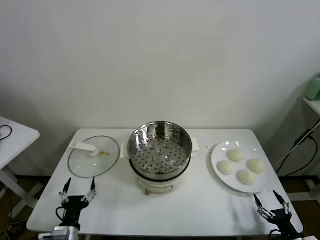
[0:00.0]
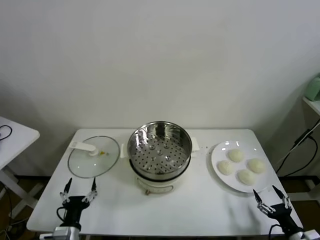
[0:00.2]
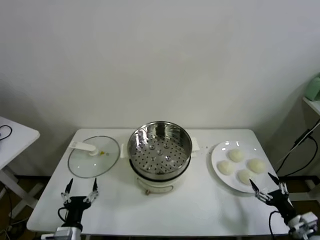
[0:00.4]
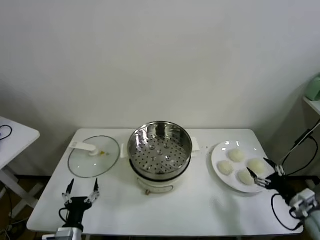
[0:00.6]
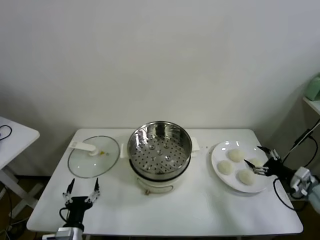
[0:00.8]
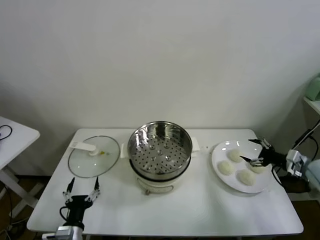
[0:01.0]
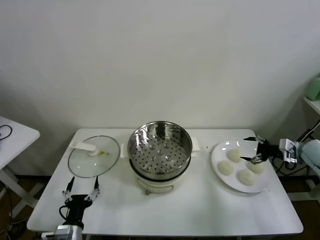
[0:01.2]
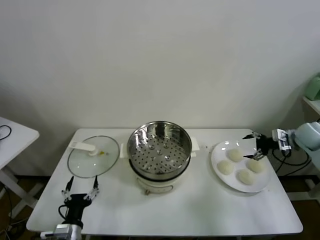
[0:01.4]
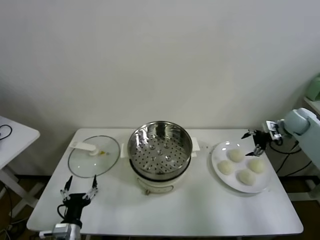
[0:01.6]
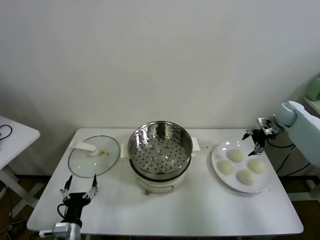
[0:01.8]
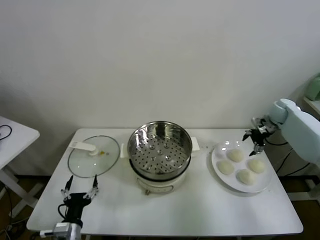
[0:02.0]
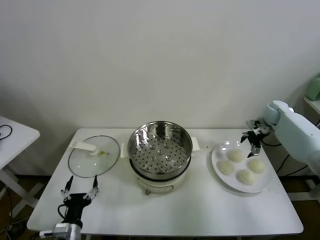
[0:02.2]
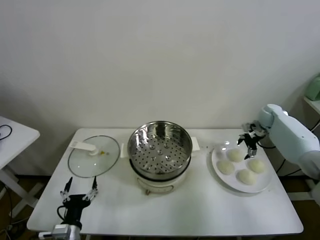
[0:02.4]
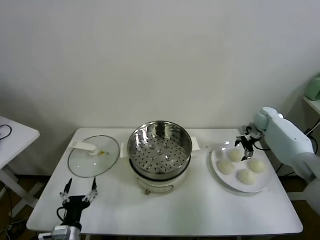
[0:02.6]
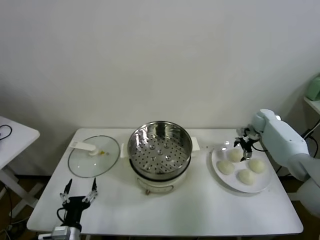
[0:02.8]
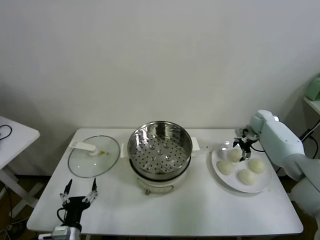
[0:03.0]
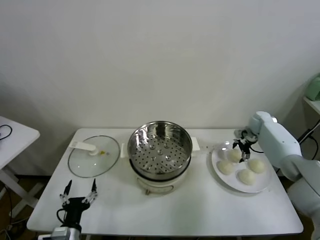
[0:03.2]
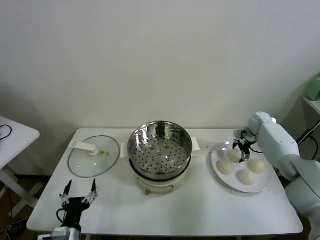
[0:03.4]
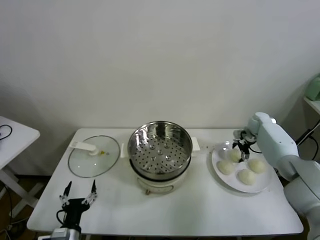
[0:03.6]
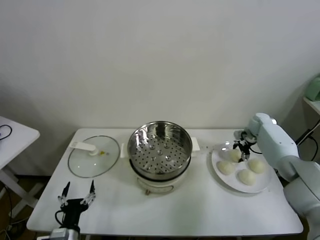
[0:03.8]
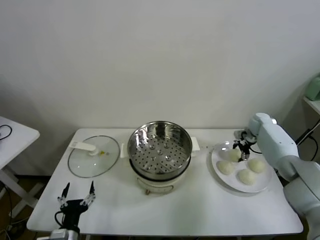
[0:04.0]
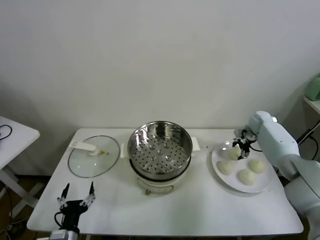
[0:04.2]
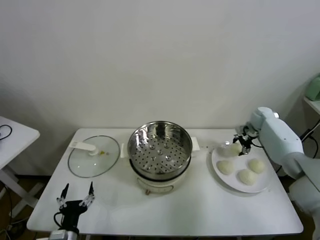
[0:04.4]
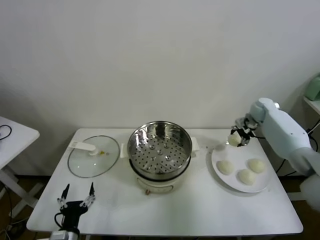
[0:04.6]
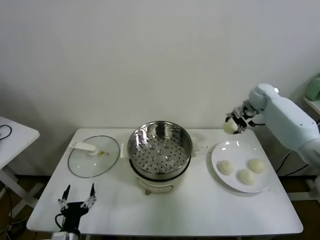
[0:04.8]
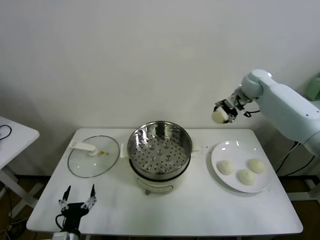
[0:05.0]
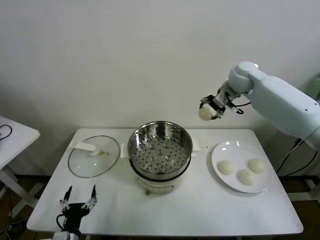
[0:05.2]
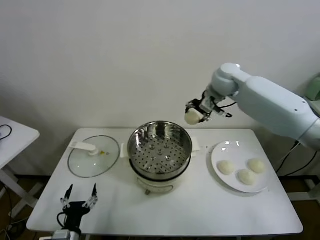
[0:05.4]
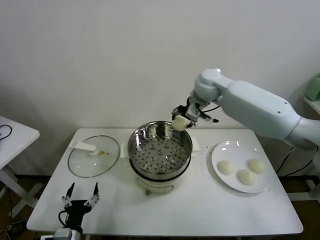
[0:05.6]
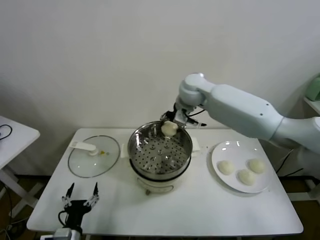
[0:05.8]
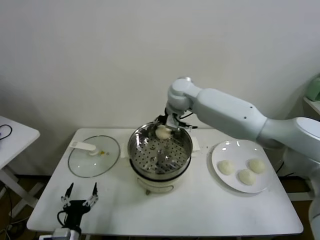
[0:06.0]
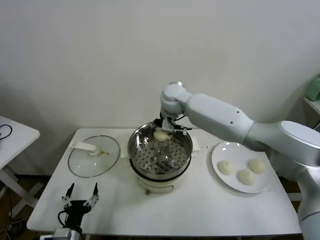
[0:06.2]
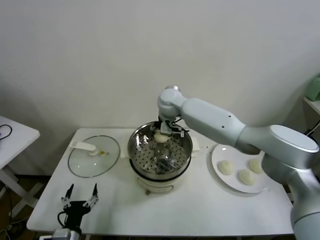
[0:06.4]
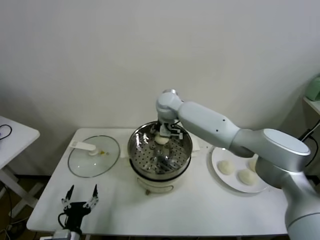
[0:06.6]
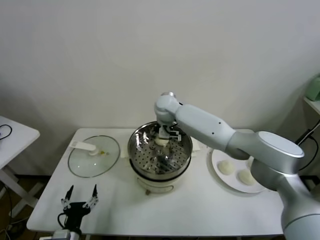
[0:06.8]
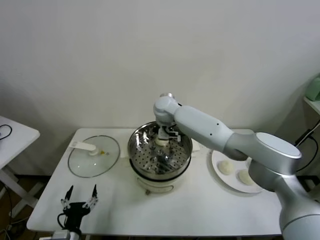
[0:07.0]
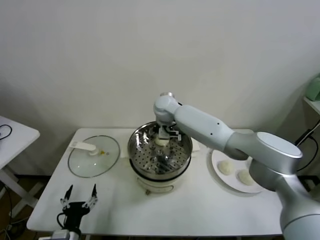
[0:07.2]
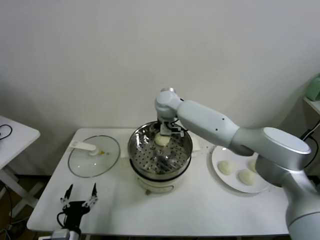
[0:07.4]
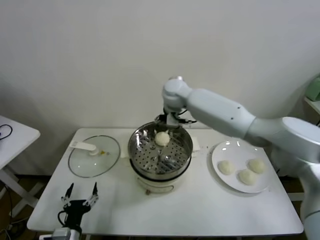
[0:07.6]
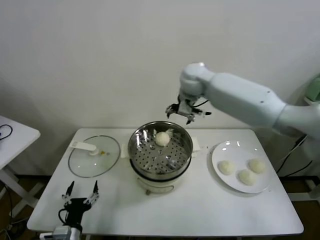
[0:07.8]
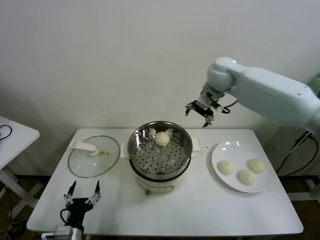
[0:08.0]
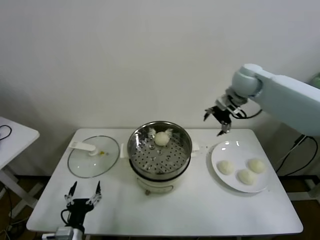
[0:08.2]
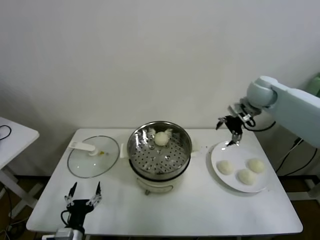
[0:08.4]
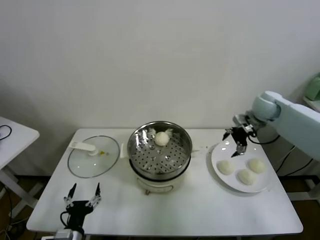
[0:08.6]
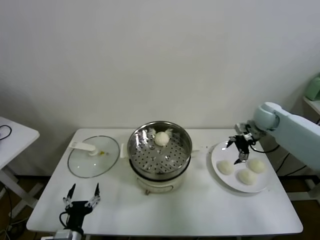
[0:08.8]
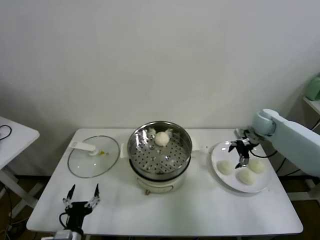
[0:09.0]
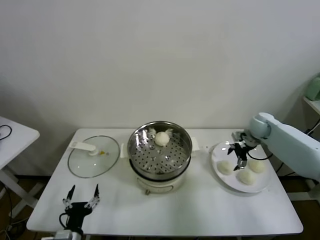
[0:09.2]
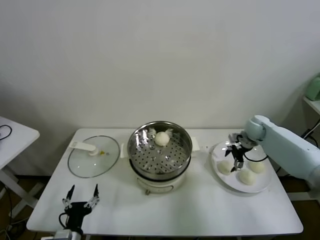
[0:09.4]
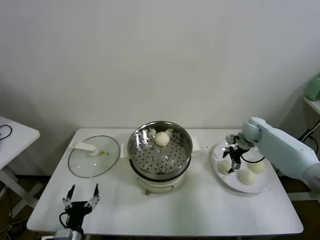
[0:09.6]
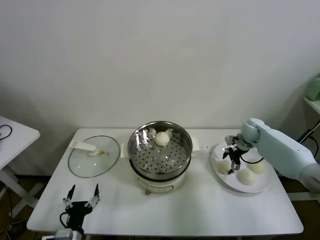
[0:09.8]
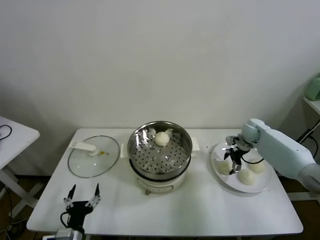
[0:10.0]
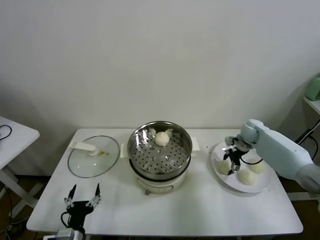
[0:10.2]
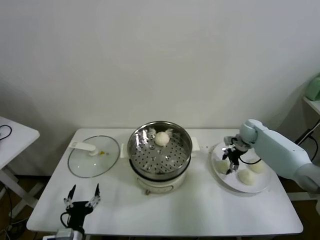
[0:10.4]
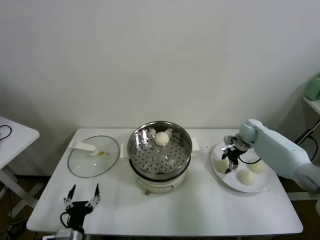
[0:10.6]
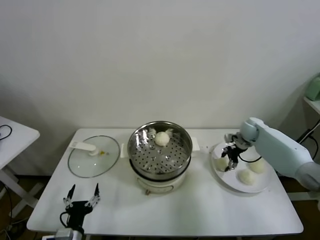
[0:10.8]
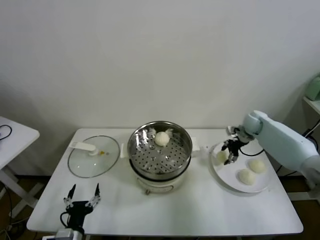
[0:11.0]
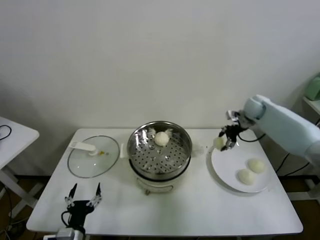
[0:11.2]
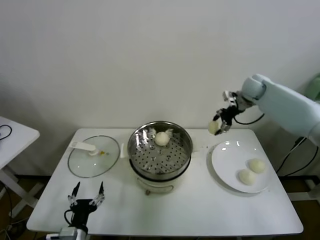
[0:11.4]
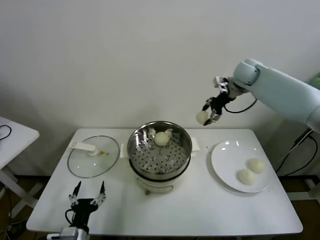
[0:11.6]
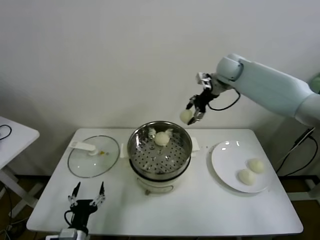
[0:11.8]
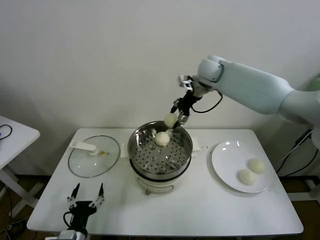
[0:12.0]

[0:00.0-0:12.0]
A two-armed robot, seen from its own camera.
Task of the whole recording: take steamed baozi put them in steamer.
Step, 0.0 to 3.8 s: Grasp the baozi in the plate with right gripper.
Step, 4.2 to 7.0 s: Place the baozi on the steamer with right gripper.
Step, 7.4 to 10.4 s: Grasp the baozi in the plate with right gripper.
1.6 to 3.0 s: The right gripper shifts some 10 cm downward, to the left and forward.
3.0 to 4.4 s: The right gripper closes its fingers.
4.4 to 6.0 s: The right gripper moves to the left and upward, about 40 cm.
6.0 to 7.6 s: The right gripper goes downward and returns, about 5 cm each way, and opens its fingers.
7.6 to 9.0 s: The right gripper heads to the right and downward, covering some 35 cm.
9.0 to 10.4 s: The right gripper travels downward by some 5 cm, and closes up.
10.4 to 12.0 s: The right gripper goes approximately 35 cm upward and to the left.

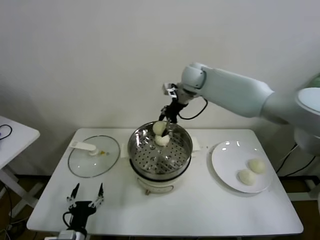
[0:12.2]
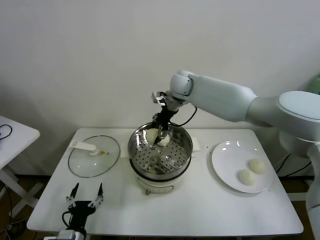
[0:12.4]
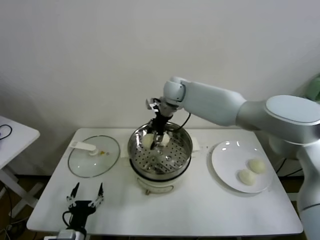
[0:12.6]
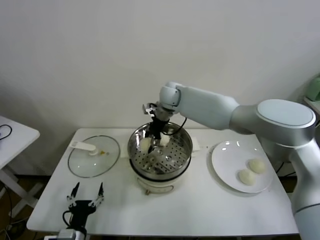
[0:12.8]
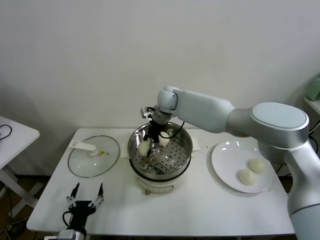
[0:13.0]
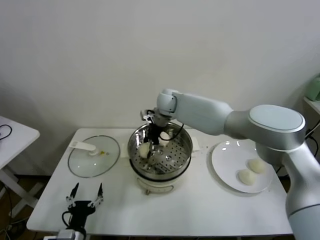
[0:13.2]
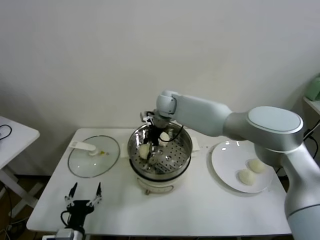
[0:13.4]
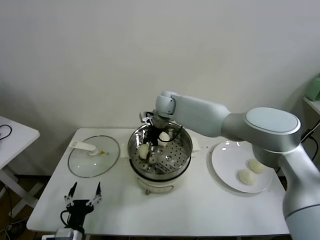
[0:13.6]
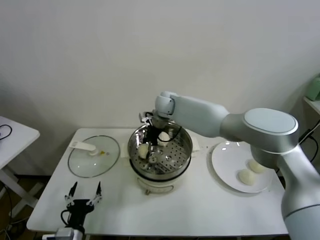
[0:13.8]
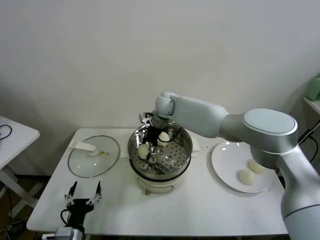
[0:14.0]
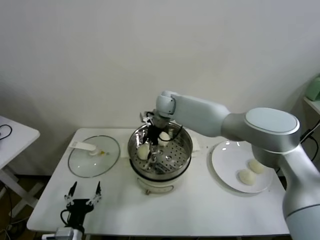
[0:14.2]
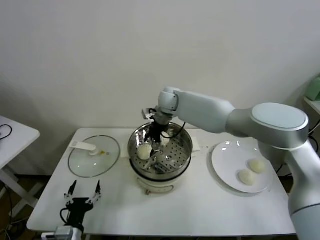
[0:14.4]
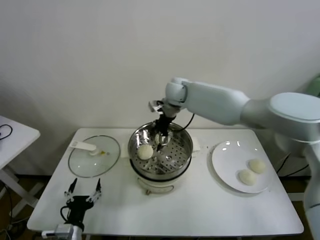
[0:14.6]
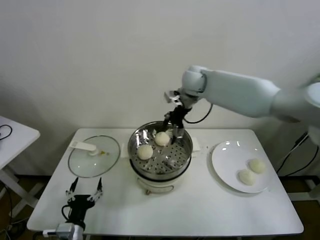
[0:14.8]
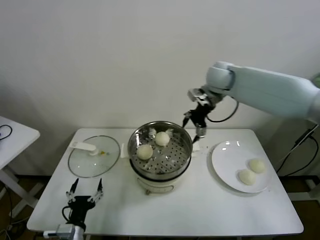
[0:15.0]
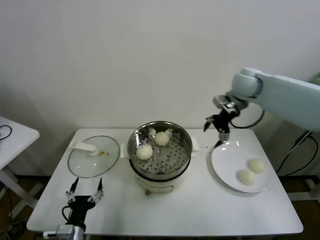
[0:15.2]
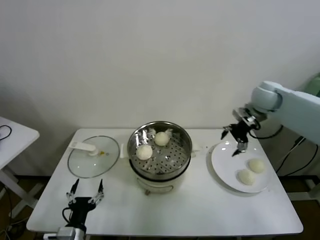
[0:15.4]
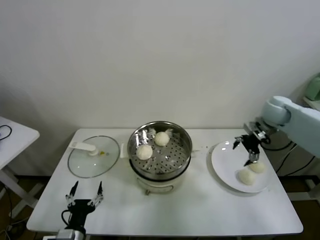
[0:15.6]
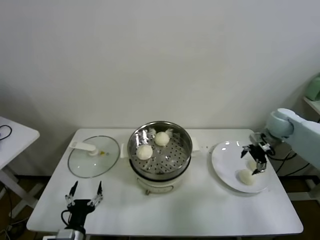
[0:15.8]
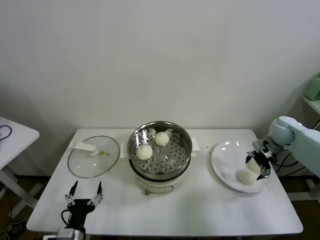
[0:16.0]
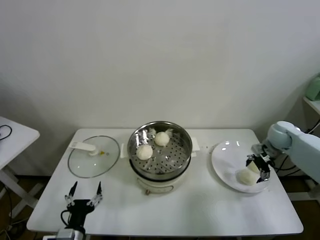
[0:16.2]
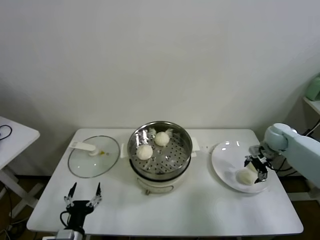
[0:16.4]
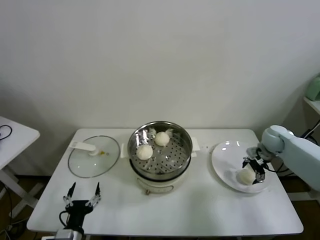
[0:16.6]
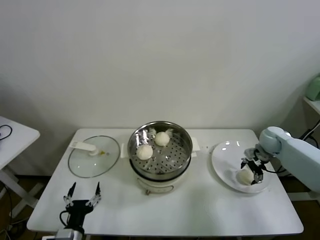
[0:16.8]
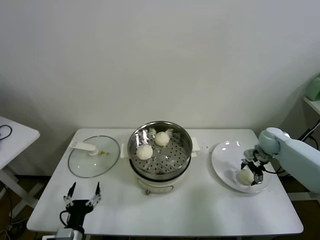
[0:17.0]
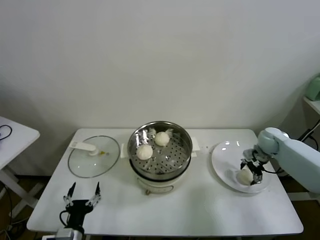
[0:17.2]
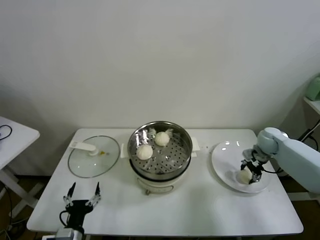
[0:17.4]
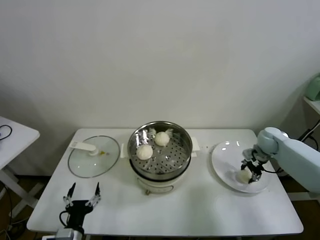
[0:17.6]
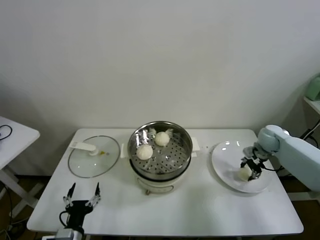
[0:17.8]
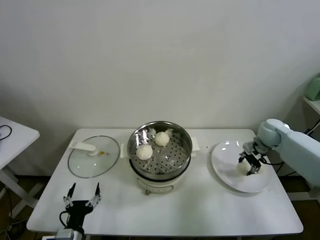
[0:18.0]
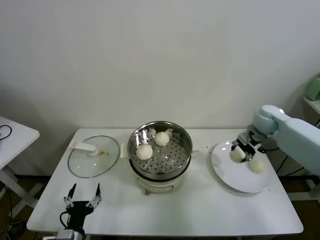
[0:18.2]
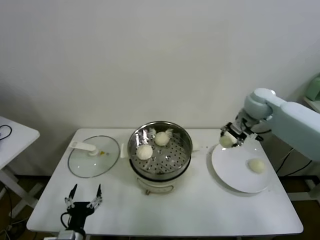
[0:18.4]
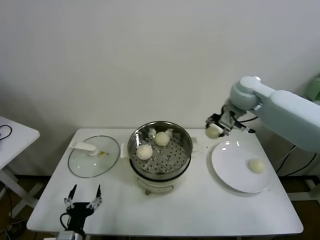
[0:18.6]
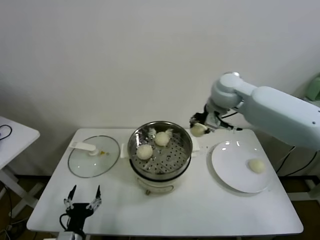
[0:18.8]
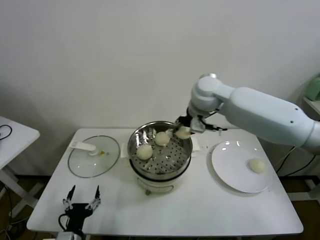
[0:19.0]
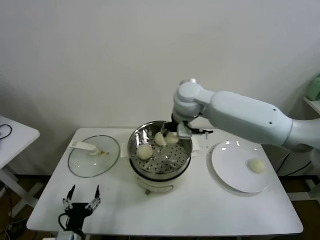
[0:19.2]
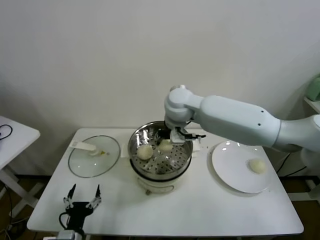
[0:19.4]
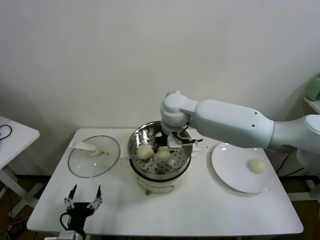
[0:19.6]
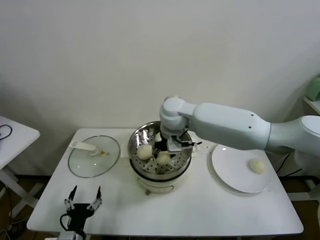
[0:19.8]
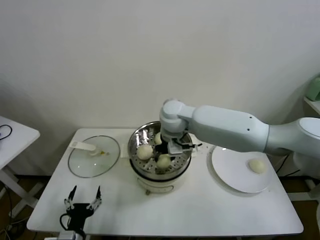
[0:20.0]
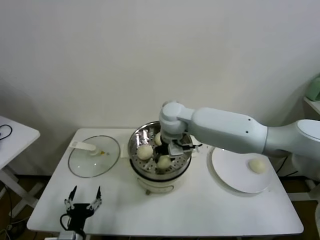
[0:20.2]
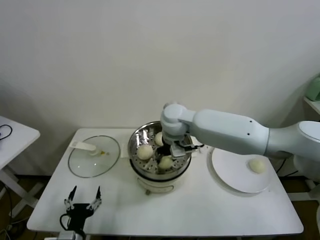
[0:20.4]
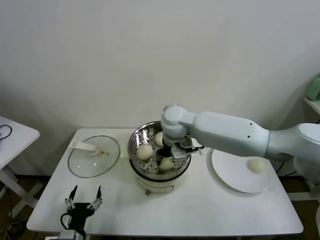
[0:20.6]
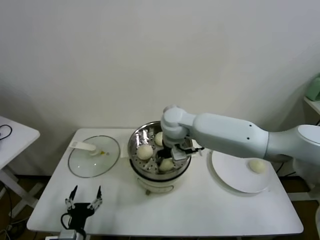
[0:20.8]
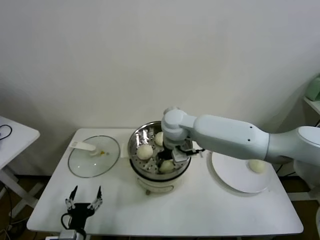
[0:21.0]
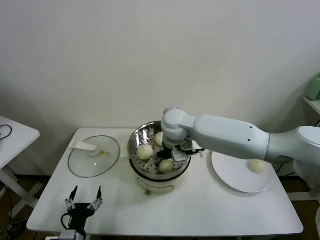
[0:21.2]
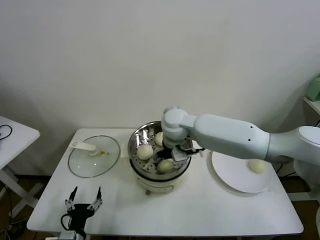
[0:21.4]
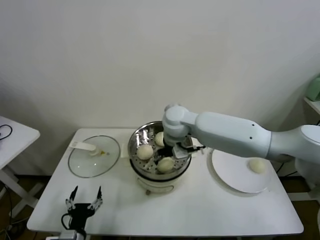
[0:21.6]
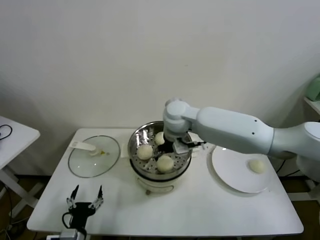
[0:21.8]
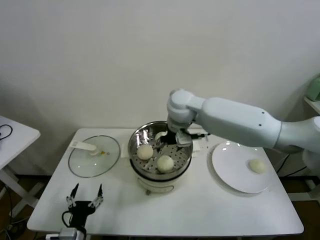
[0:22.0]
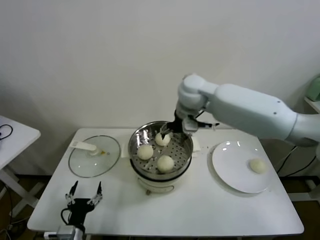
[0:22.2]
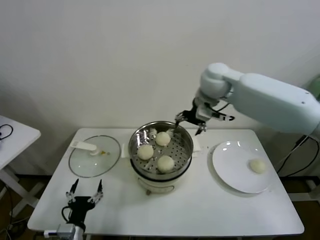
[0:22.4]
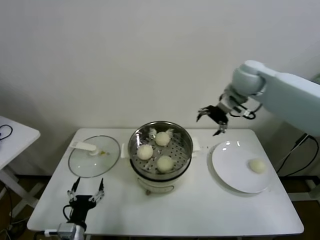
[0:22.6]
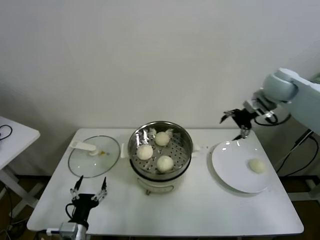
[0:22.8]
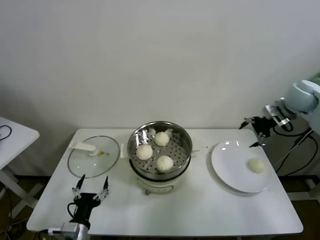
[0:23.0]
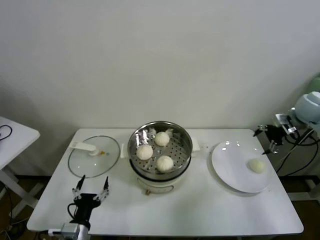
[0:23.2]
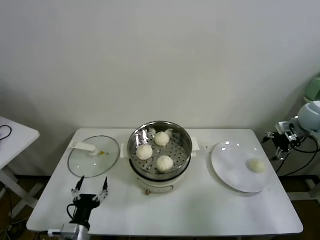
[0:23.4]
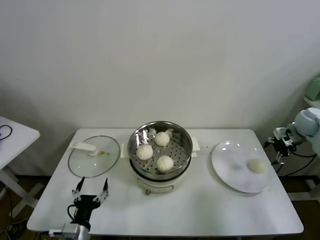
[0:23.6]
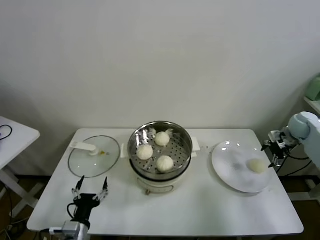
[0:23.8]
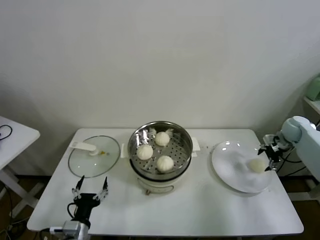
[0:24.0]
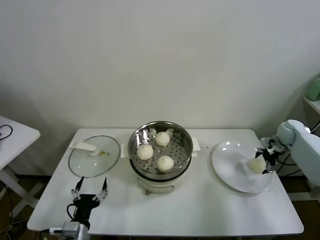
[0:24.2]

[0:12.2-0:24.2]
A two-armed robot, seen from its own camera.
Task of the whole recording: take steamed baozi put them in steamer.
Step, 12.2 to 14.2 s: Place the baozi on the steamer with right gripper.
Step, 14.4 to 17.4 s: Grasp the baozi in the plate with right gripper.
Step, 17.6 to 21.4 s: Place the baozi on the steamer with right gripper.
12.2 to 13.8 s: The right gripper goes some 15 cm downward and to the left.
13.8 to 15.2 s: The right gripper travels to the right by approximately 25 cm, and opens.
15.2 to 16.6 s: The right gripper travels downward and to the right by about 25 cm.
16.6 to 18.2 s: The right gripper travels upward and to the left by approximately 10 cm, and closes up.
18.2 to 19.8 s: The right gripper heads to the left, covering roughly 35 cm.
19.8 to 21.2 s: The right gripper opens.
21.2 to 22.6 s: The right gripper shifts approximately 25 cm to the right and upward, and opens.
22.6 to 24.2 s: The right gripper travels to the right and downward by some 35 cm.
